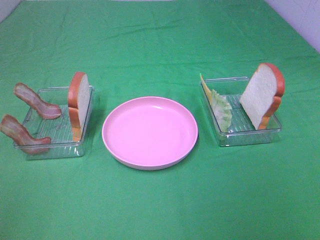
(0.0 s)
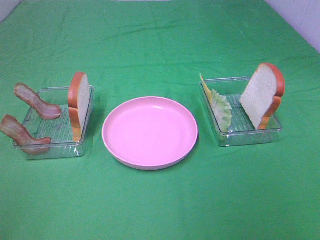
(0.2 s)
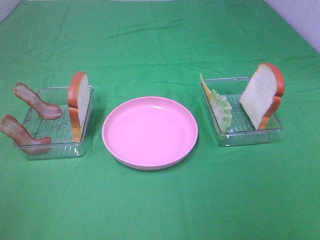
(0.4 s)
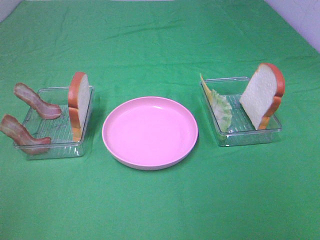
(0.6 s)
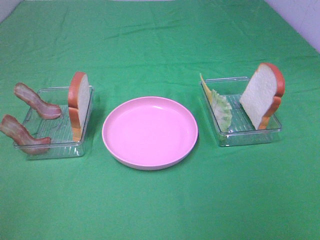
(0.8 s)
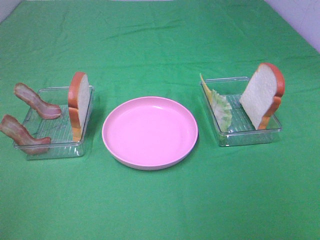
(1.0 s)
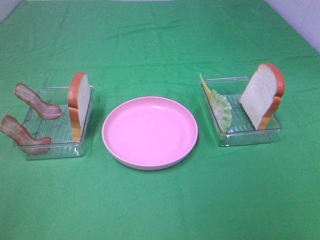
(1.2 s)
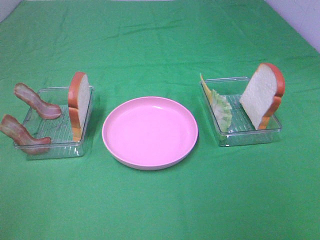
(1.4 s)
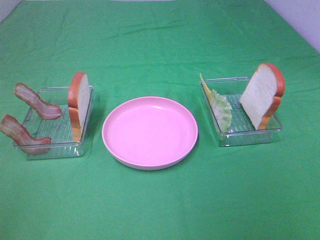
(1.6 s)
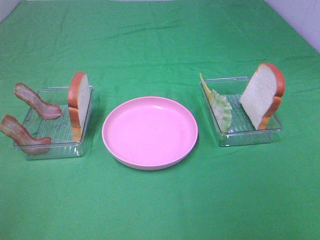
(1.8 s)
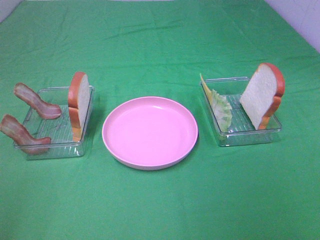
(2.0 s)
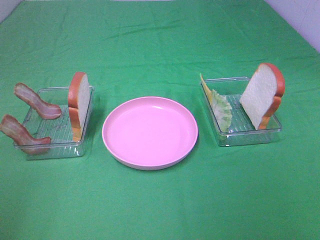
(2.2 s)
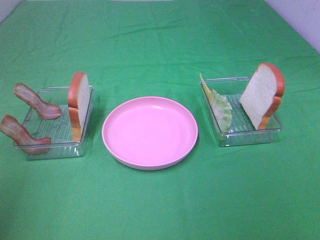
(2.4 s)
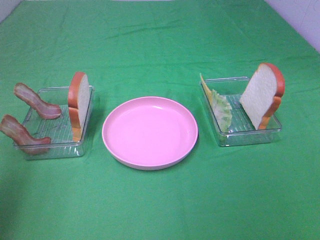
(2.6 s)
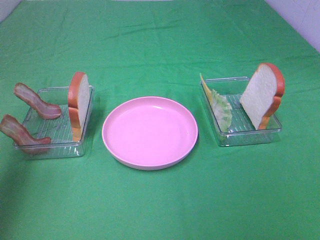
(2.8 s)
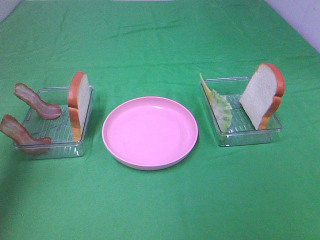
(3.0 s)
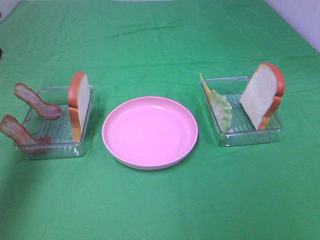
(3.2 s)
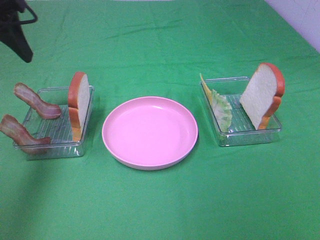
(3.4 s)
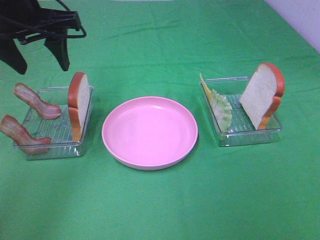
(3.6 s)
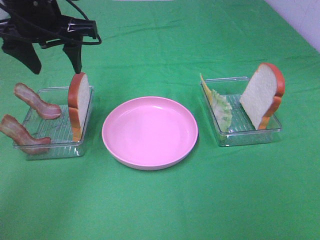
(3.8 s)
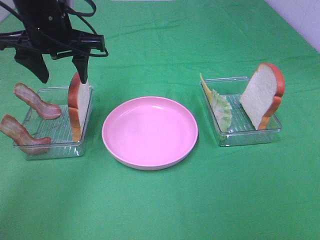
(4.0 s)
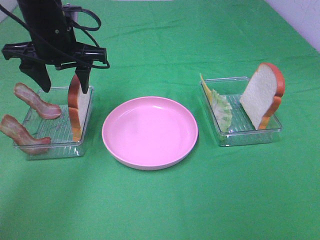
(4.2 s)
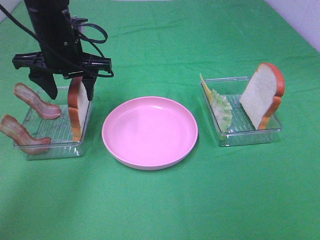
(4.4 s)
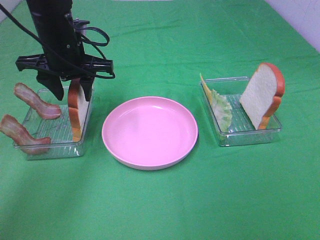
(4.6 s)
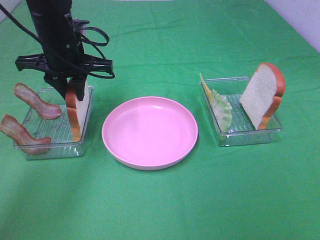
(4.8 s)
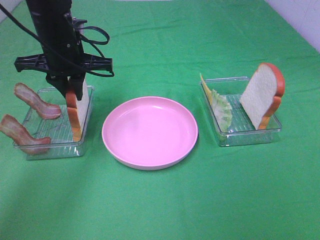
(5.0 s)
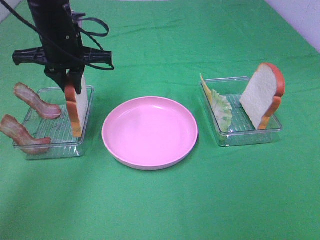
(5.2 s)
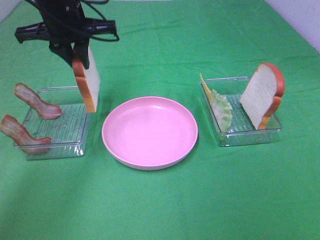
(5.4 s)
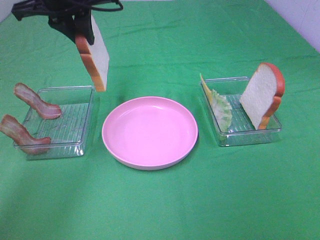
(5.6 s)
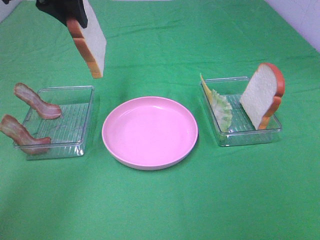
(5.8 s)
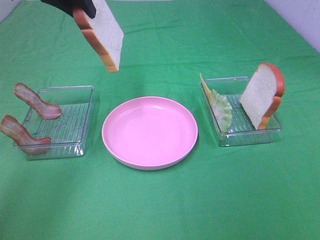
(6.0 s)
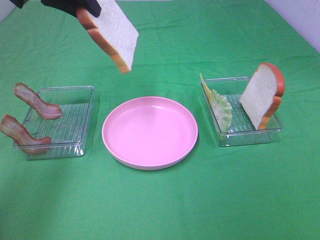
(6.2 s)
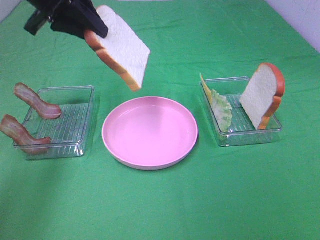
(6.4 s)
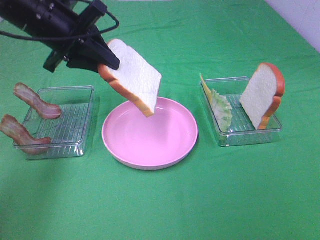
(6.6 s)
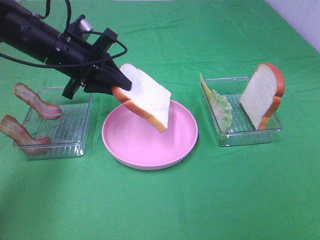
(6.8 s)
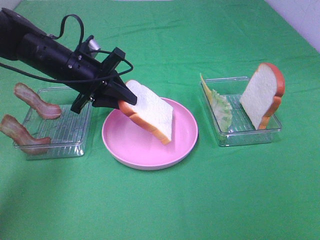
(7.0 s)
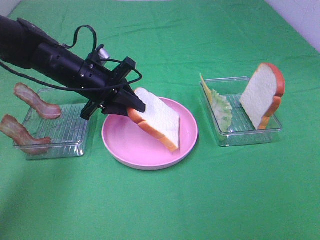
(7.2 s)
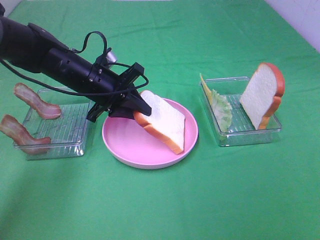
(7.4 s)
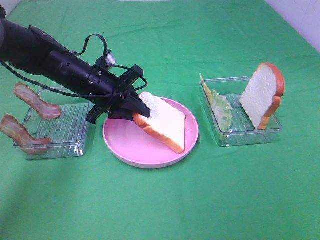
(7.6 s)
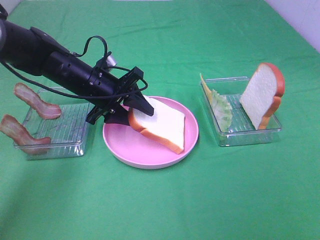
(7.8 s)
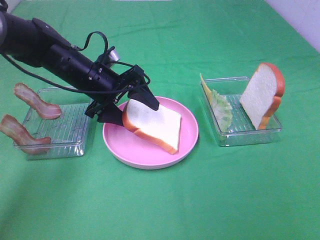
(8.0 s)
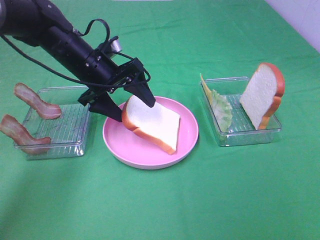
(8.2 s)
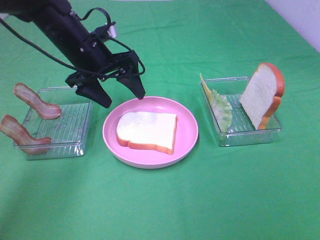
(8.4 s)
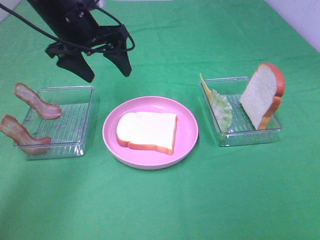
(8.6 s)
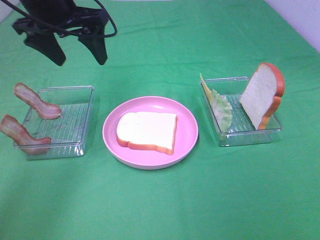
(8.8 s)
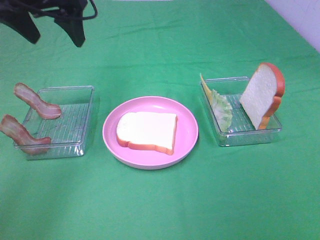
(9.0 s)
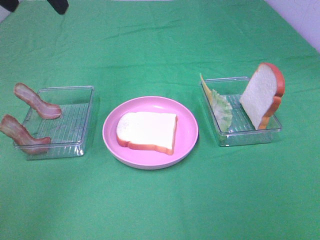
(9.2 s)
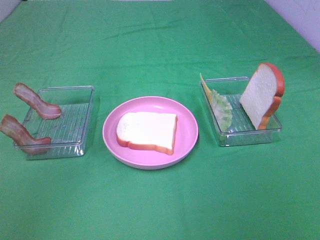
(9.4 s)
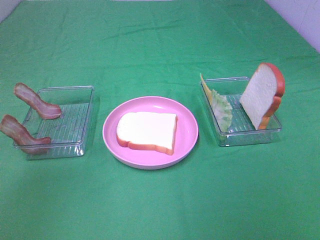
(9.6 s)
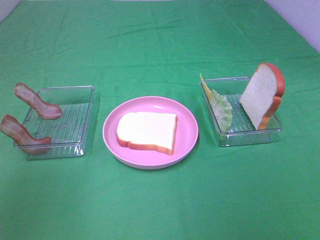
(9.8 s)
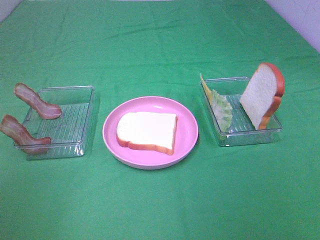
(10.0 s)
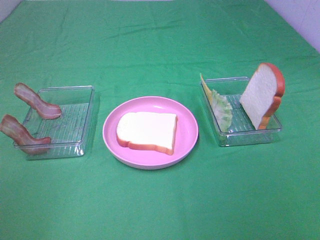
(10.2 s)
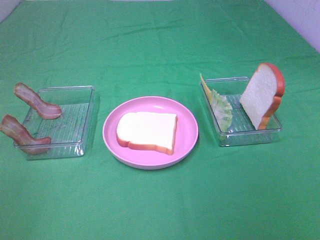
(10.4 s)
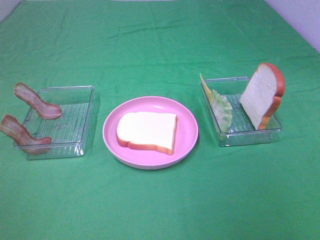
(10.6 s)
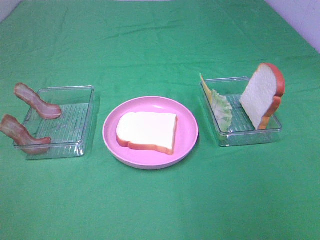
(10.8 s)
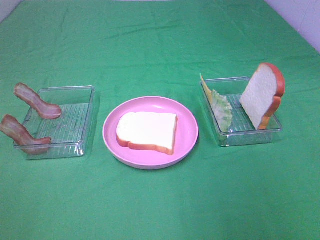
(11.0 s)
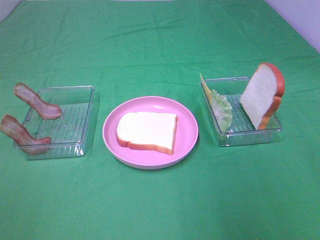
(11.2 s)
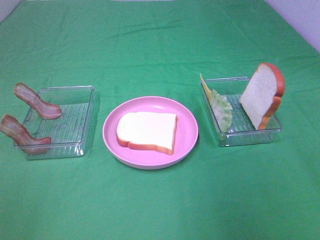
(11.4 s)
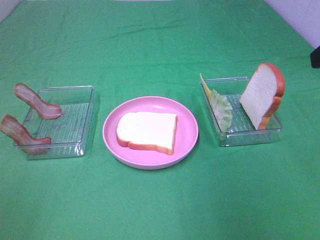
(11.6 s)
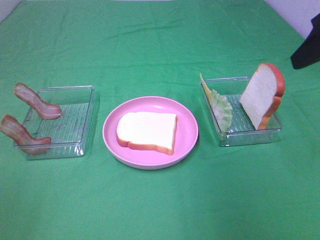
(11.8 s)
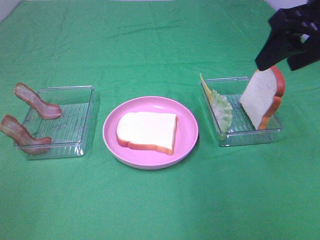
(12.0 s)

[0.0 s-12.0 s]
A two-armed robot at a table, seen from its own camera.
Task of the whole recording: Make sandwiches.
Step, 0.0 to 5.0 s: Left hand:grab the bread slice.
Step, 5.2 to 8.4 s: Left hand:place the bread slice on the plate.
0.0 to 1.6 s: Both grippers stay about where they are.
1.6 to 3.0 s: The left gripper shifts about 25 cm forward.
3.0 to 4.4 s: The left gripper goes roughly 25 cm to the right, forward and downward.
4.4 to 6.0 s: The left gripper is displaced upward by roughly 15 cm, and closes up.
6.0 to 7.6 s: The left gripper is displaced downward by approximately 25 cm.
7.6 to 9.0 s: The left gripper travels upward by roughly 20 cm, and opens.
9.0 to 10.4 s: The left gripper moves backward, some 35 cm.
10.4 to 12.0 s: The right gripper heads forward, covering some 30 cm.

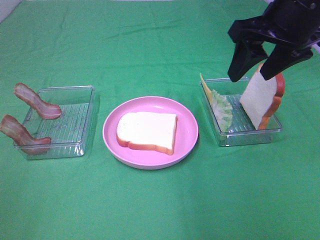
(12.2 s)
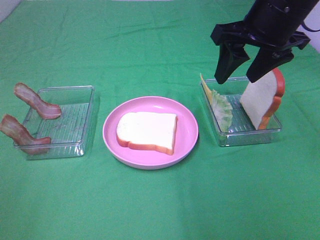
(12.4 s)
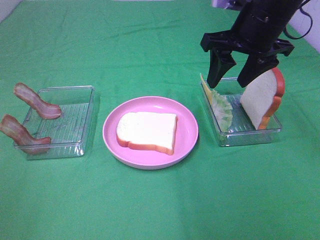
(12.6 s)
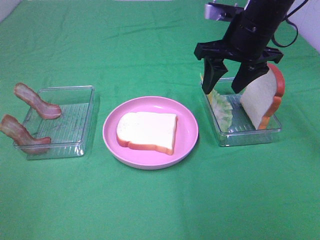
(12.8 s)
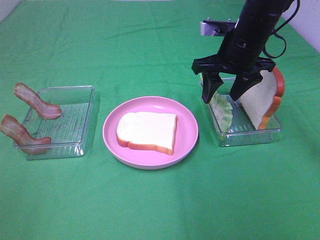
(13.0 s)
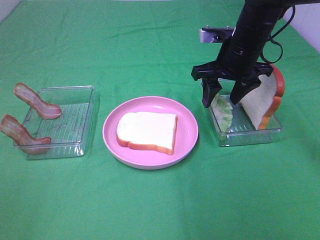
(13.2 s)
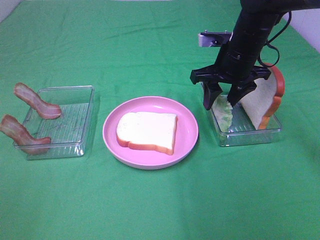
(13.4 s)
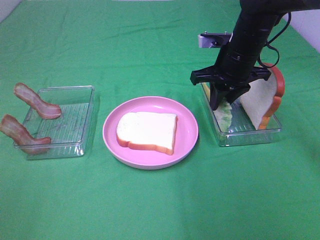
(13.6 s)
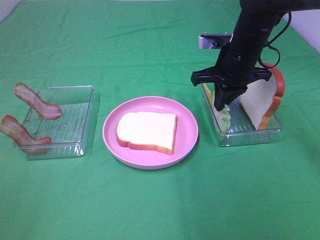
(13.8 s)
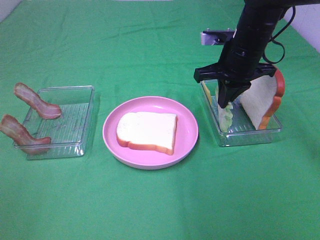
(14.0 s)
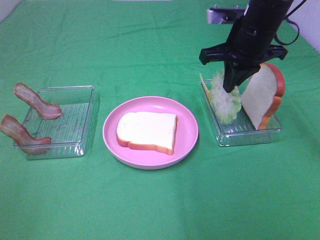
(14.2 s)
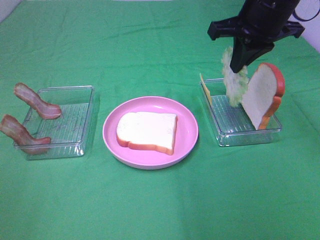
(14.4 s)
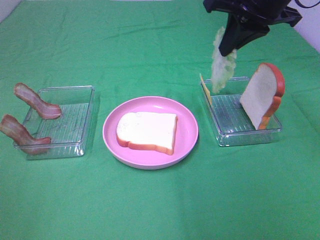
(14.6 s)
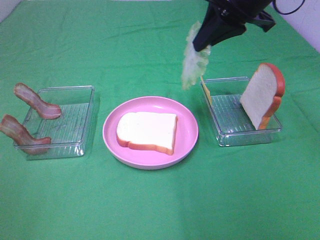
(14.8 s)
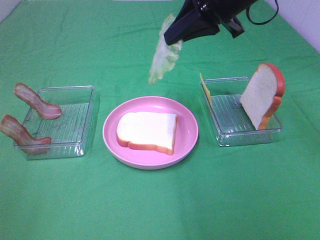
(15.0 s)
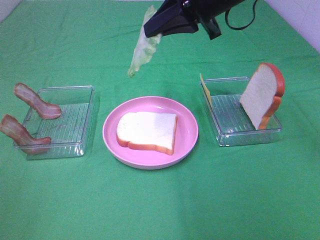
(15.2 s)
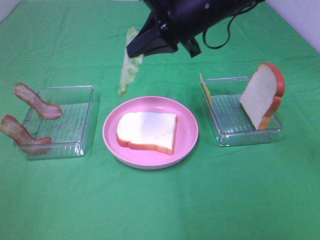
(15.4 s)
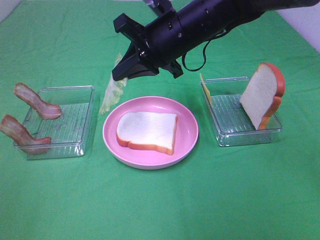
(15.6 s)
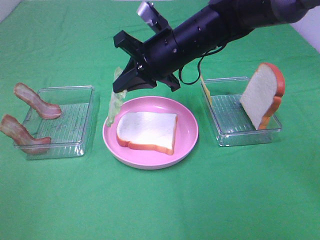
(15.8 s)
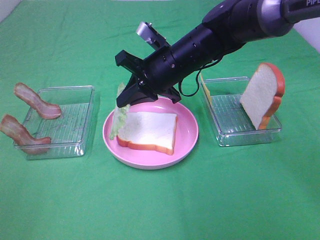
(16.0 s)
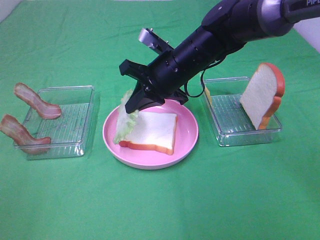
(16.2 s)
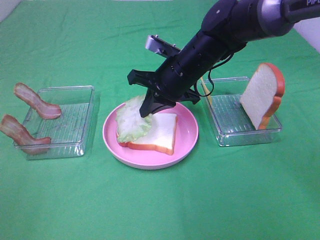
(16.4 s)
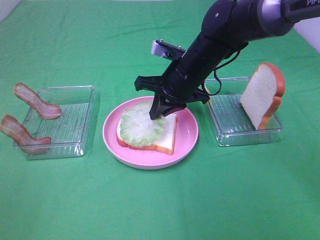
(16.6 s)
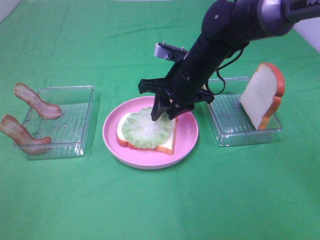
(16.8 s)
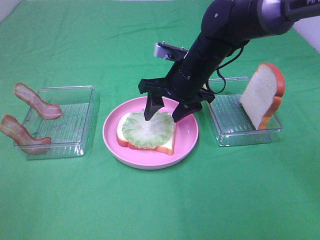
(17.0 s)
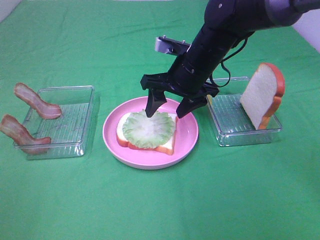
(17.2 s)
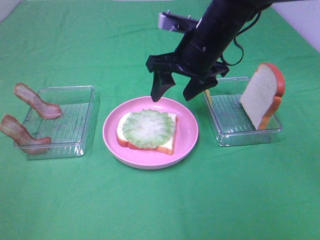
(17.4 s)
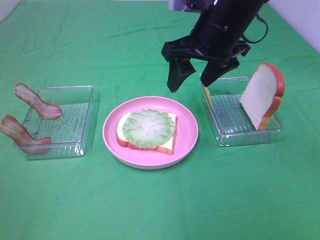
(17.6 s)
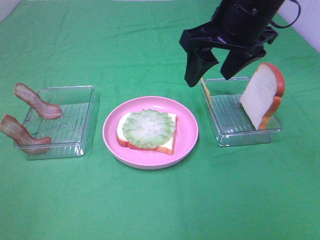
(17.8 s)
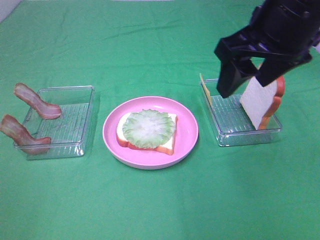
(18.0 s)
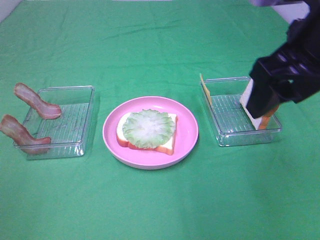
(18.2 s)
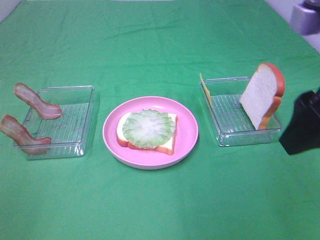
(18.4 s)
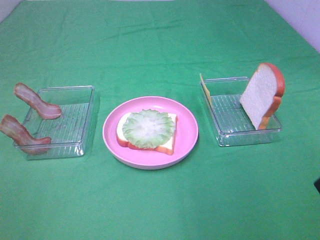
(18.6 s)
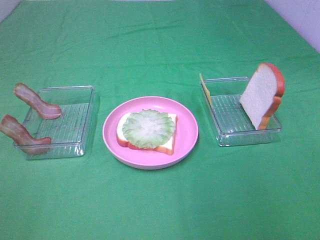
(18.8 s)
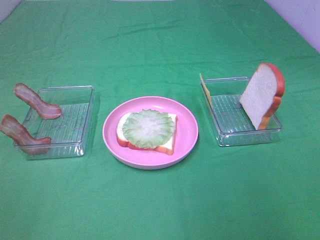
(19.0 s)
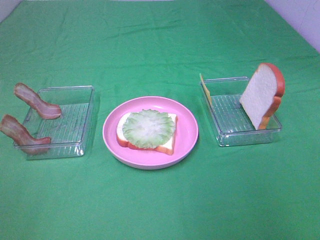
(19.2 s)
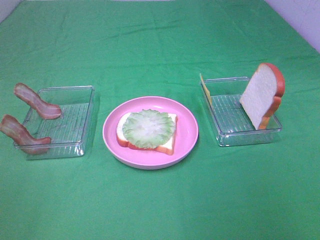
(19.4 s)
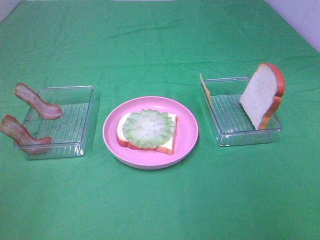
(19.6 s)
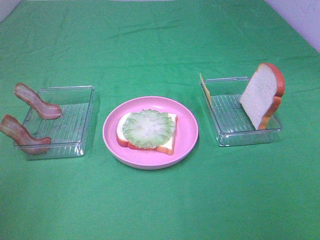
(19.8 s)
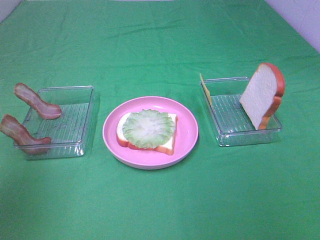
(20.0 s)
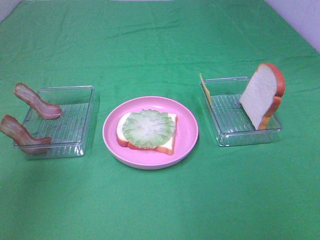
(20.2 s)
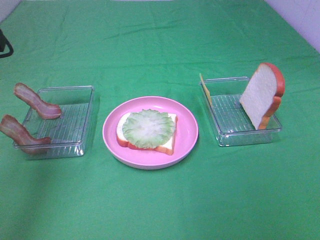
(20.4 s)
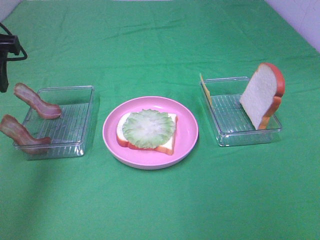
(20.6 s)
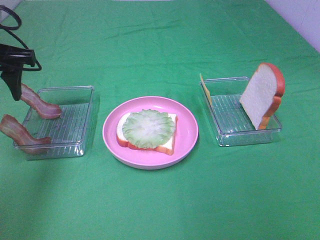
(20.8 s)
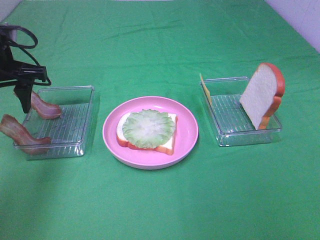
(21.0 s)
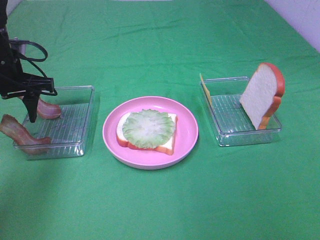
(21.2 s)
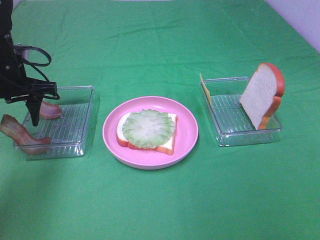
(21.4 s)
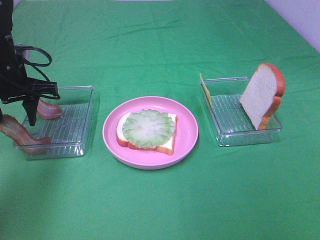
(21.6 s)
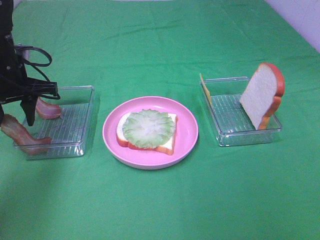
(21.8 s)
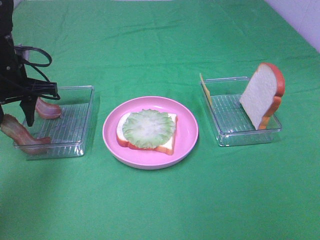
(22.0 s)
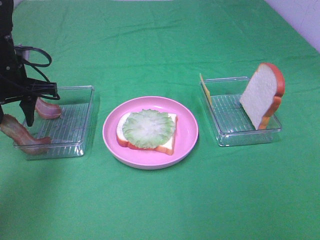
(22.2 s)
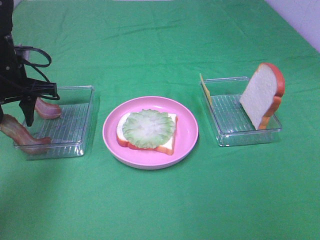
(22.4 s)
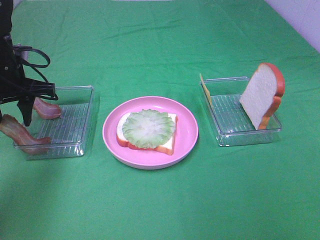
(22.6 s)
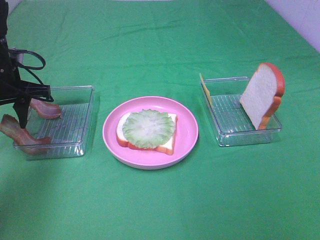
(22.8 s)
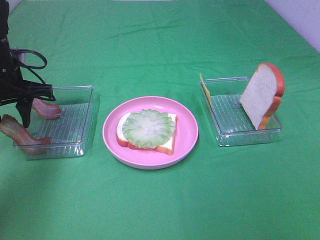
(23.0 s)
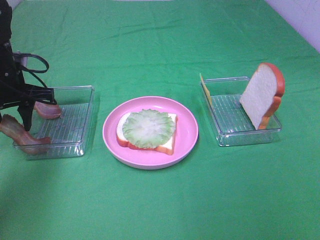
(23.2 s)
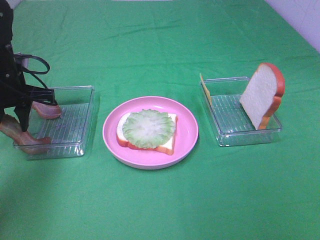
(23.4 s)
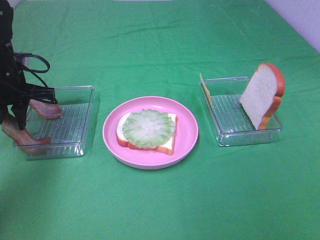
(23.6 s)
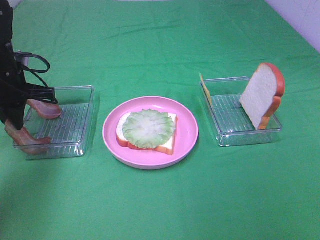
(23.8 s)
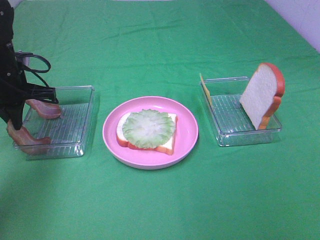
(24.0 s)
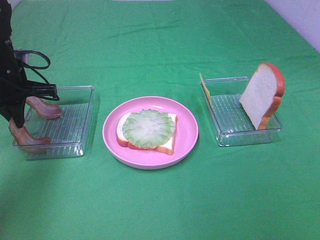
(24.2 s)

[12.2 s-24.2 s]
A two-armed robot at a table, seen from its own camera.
Task of the whole recording: Make sandwiches.
Step, 14.2 to 17.0 s: Right hand:place the lettuce slice on the bread slice.
12.2 to 13.8 s: The right gripper goes about 15 cm downward and forward, and closes up.
13.8 to 15.2 s: The right gripper travels upward and to the left by about 15 cm.
15.2 to 16.6 s: The right gripper moves downward, some 15 cm.
16.6 to 18.2 s: The right gripper moves backward, upward and to the right, approximately 25 cm, and opens.
18.2 to 19.8 s: The right gripper moves backward and to the right, approximately 25 cm.
19.8 to 21.2 s: The left gripper moves forward and downward, roughly 30 cm.
21.2 to 22.6 s: Both grippers stay about where they are.
22.6 to 24.2 s: The left gripper closes up.
